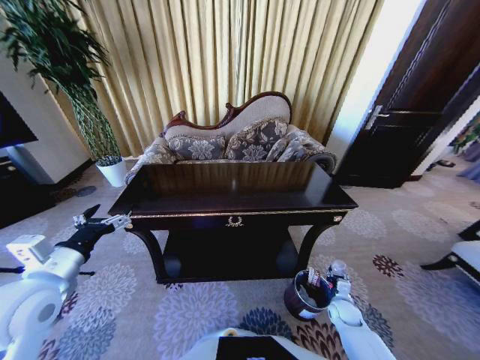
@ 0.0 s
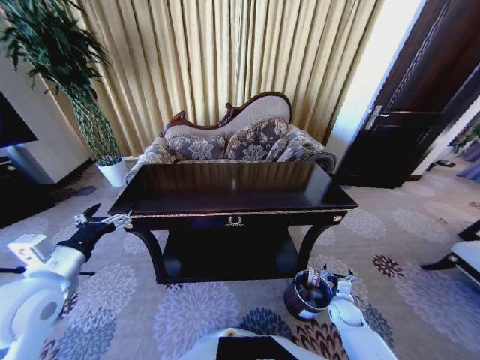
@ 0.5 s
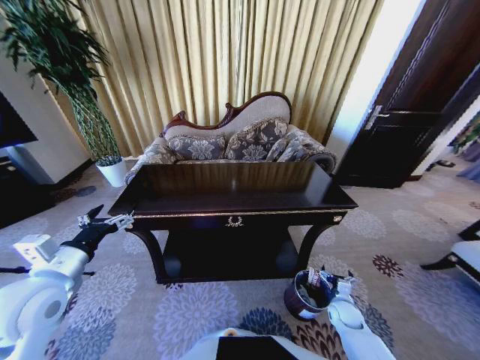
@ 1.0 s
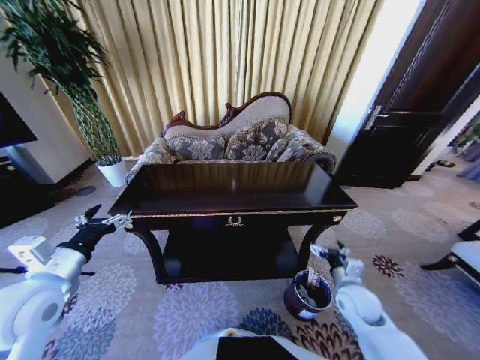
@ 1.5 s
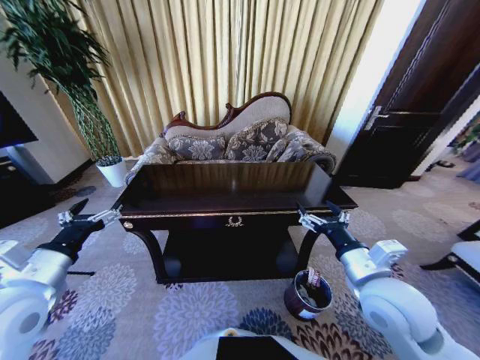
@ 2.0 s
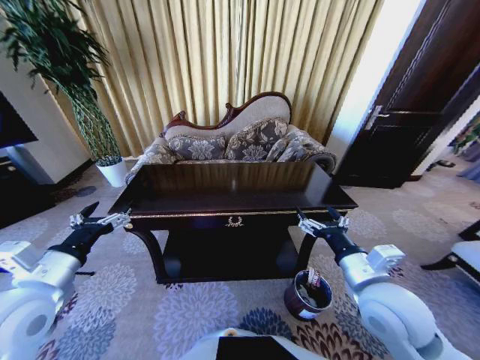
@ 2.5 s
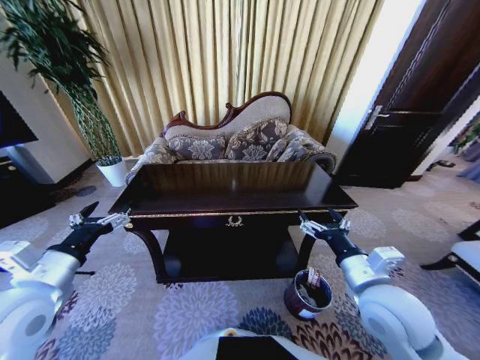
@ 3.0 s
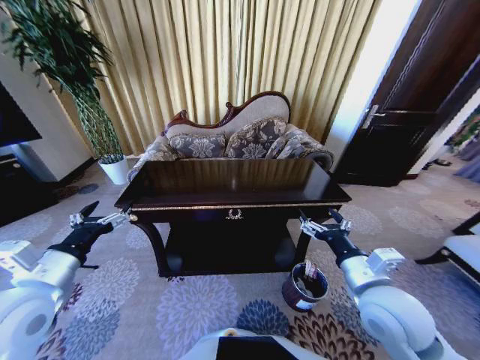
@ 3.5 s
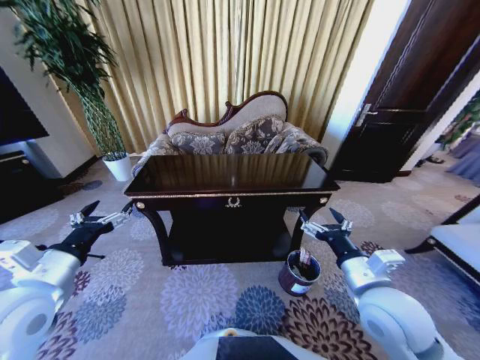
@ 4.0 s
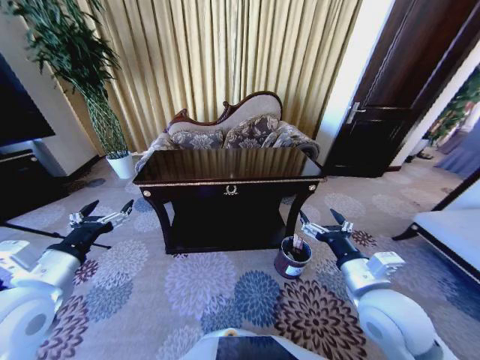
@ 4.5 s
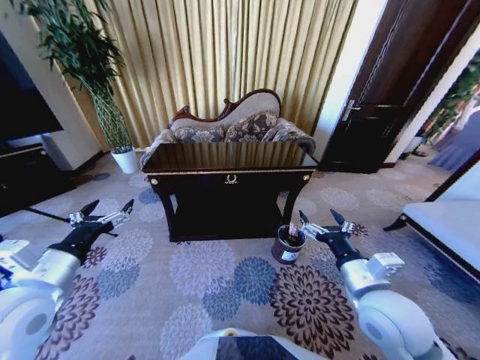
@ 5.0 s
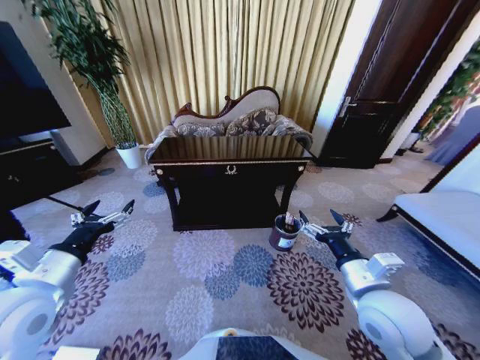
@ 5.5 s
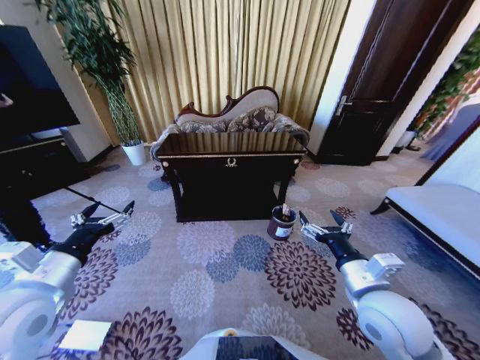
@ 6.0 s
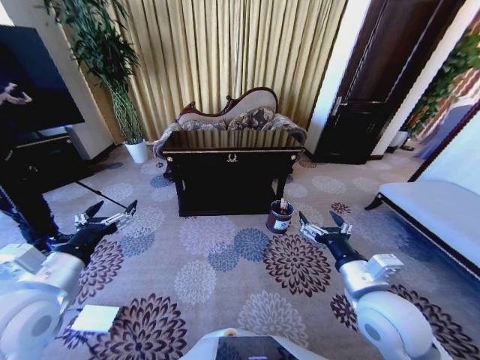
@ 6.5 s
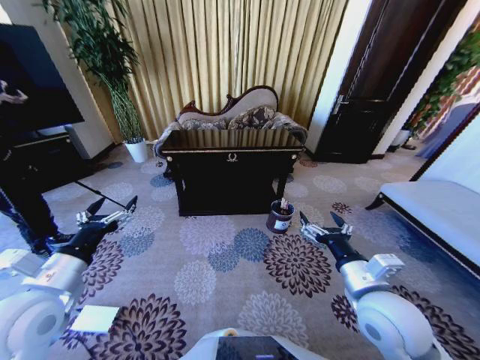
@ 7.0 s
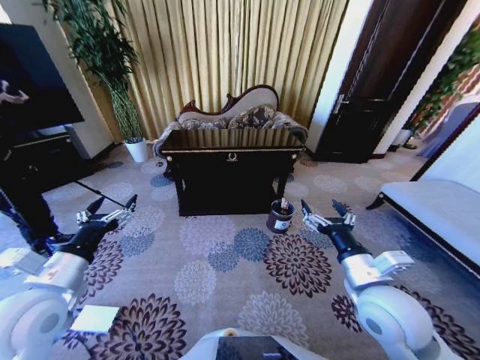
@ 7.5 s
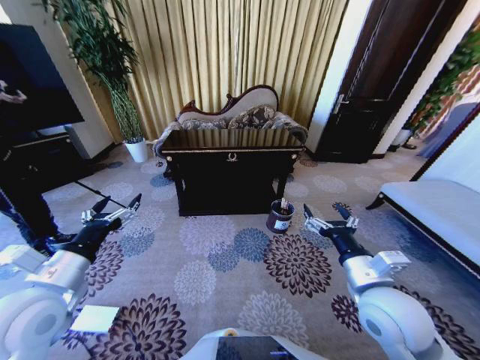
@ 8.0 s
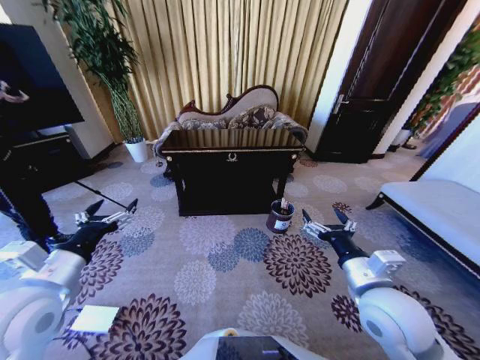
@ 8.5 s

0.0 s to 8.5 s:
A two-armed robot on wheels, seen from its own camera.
Task of the whole recording: Move to the front of the table and place the trash on the table into the trash bin.
0.0 to 2.0 s: The right gripper travels upward by roughly 35 cm, and opens.
6.5 to 8.5 s: The grippers stay close to where they were, moving slightly.

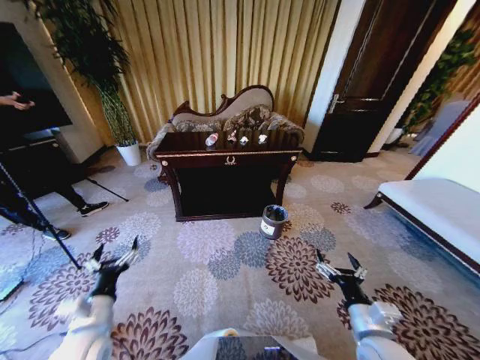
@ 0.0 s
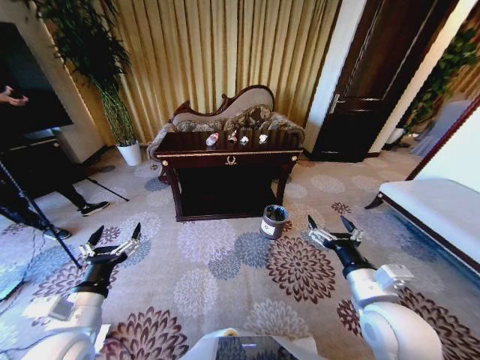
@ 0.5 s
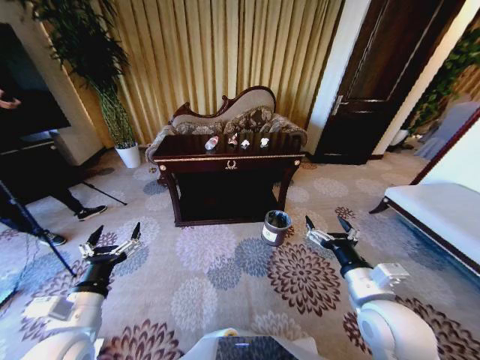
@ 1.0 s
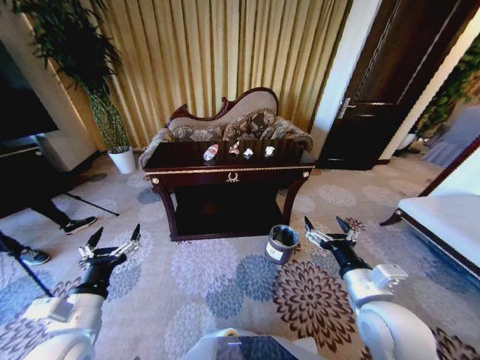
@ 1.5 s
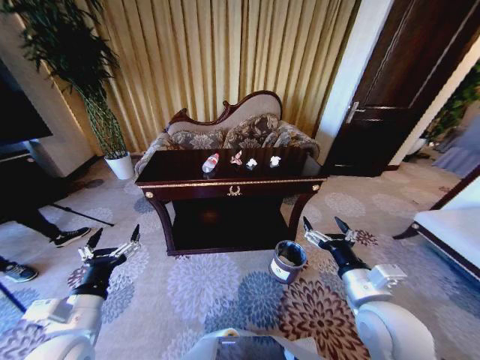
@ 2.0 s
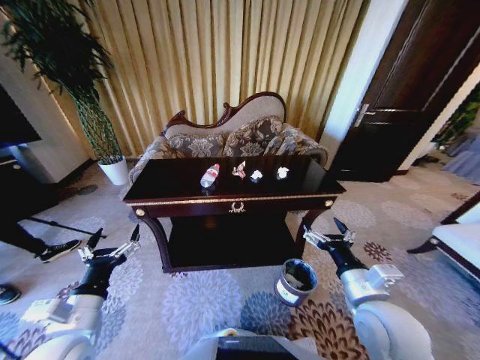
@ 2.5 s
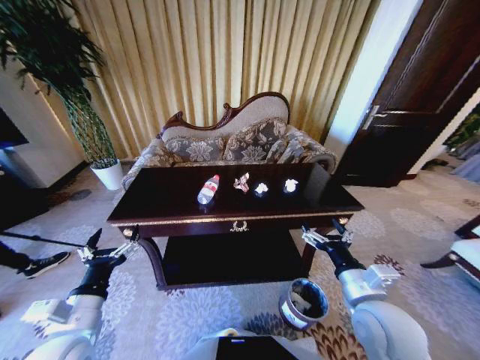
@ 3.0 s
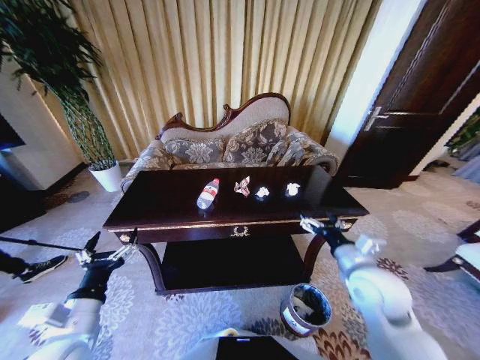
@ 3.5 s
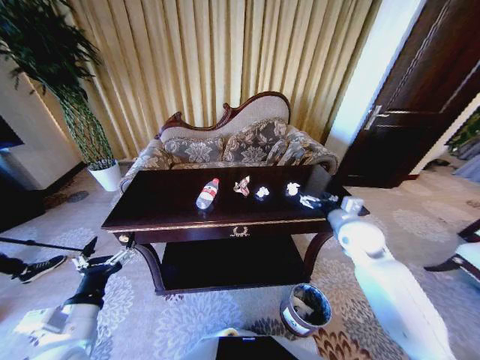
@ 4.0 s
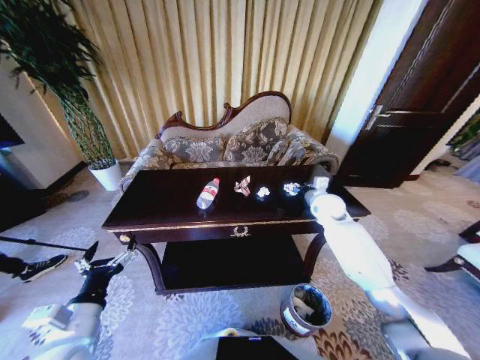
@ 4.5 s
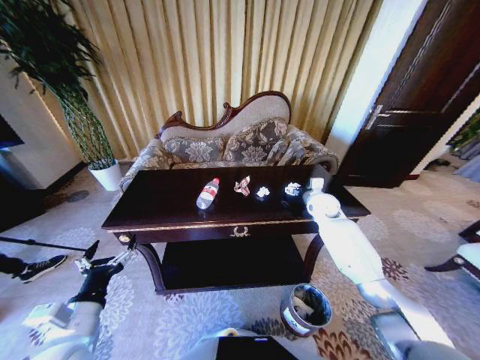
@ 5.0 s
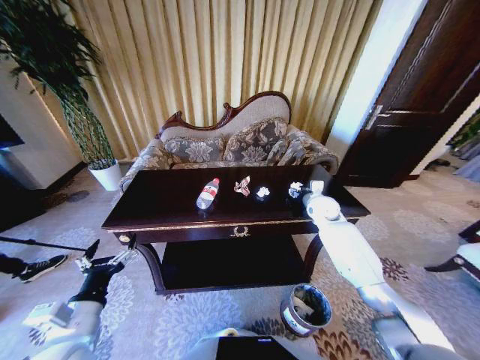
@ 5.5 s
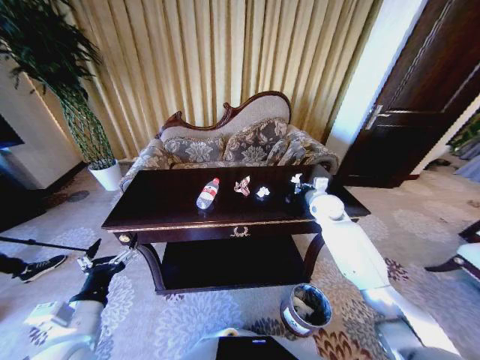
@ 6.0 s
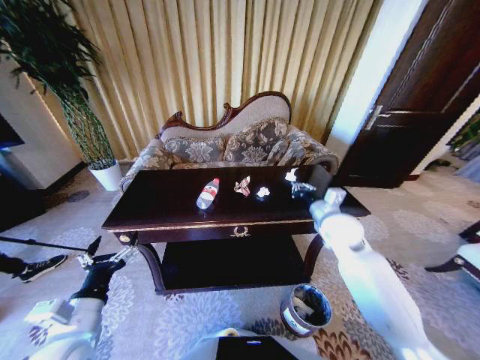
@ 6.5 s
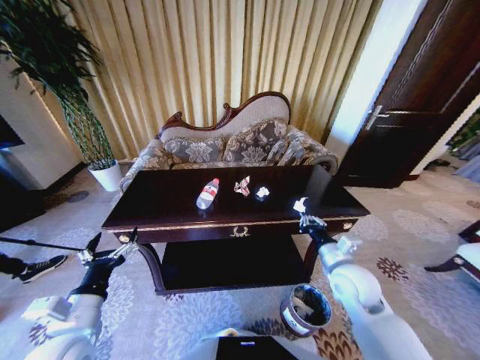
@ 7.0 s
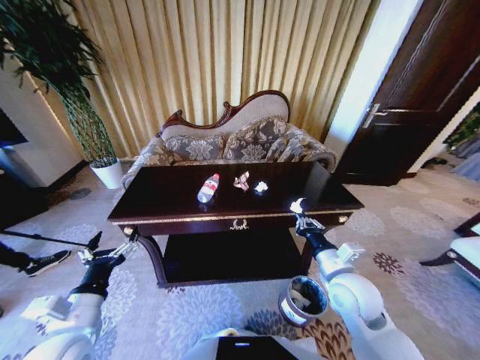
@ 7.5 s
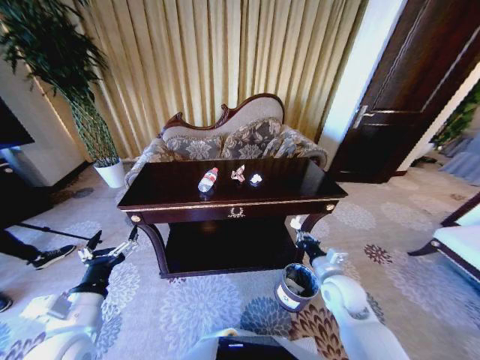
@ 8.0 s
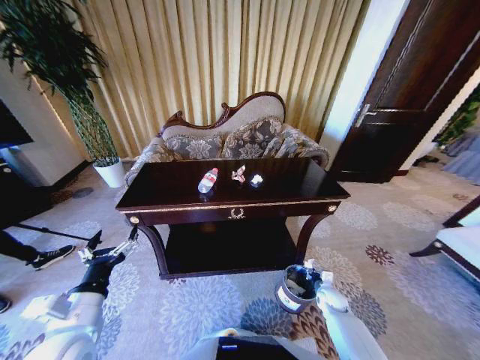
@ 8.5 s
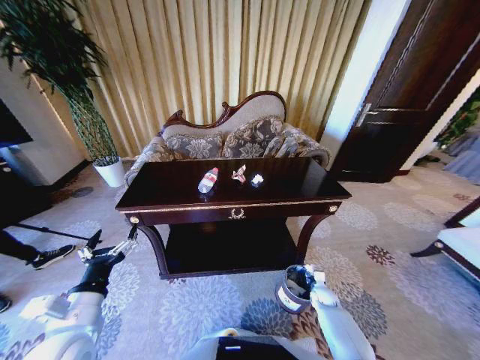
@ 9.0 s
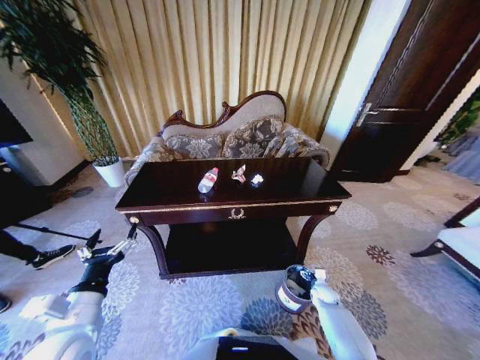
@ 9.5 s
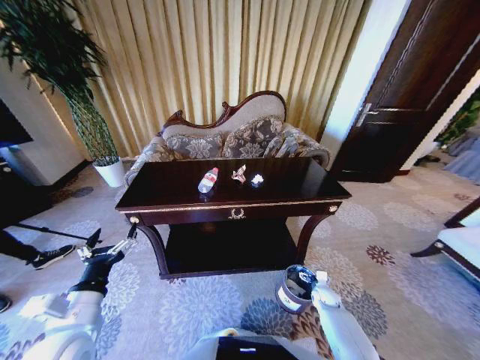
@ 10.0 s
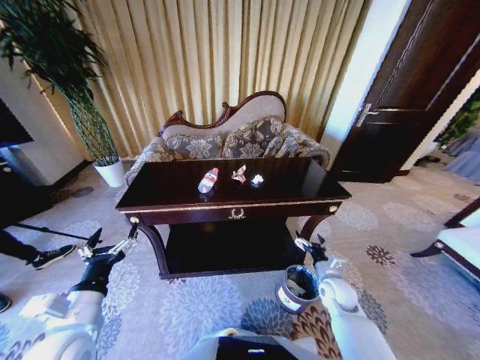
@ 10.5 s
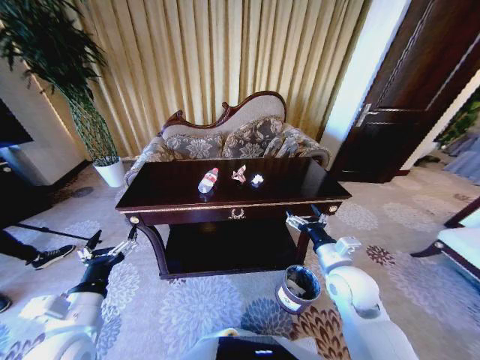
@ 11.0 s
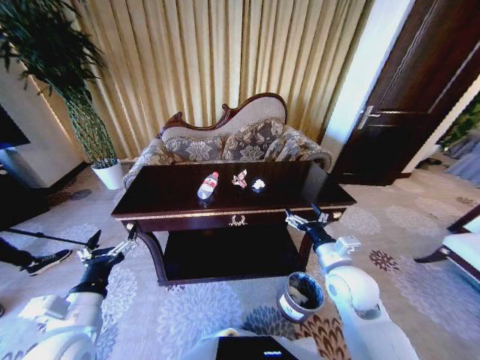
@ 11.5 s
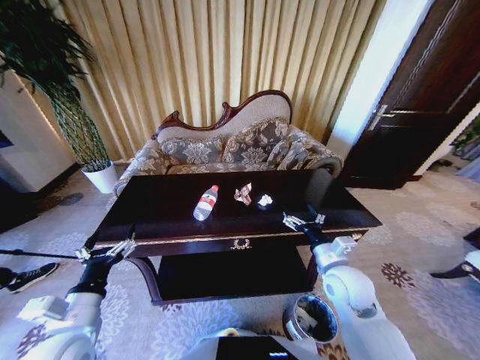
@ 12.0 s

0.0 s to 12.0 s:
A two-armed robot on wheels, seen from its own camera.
Task of the whole recording: Move to the front of the table and place the trash on the table into the trash bin.
2.0 to 4.0 s: The right gripper is displaced forward by about 20 cm.
4.0 to 6.0 s: The right gripper goes about 10 cm forward, and closes up.
6.0 to 8.0 s: The right gripper goes about 25 cm backward.
8.0 to 10.0 s: The right gripper shifts roughly 25 cm downward, and opens up.
10.0 to 12.0 s: The right gripper goes approximately 30 cm upward.

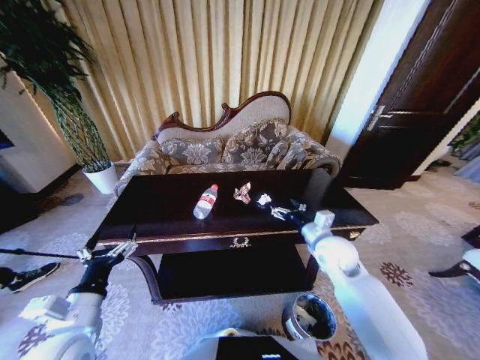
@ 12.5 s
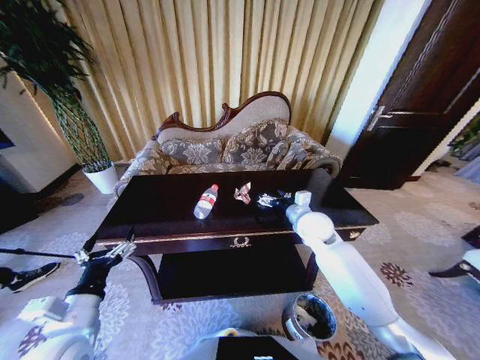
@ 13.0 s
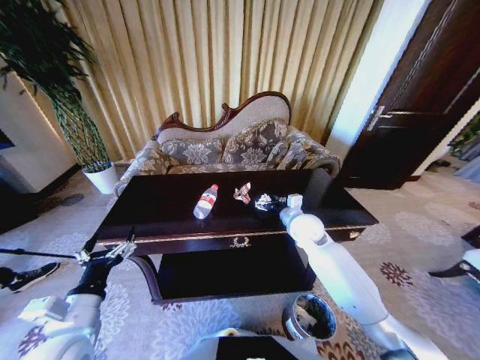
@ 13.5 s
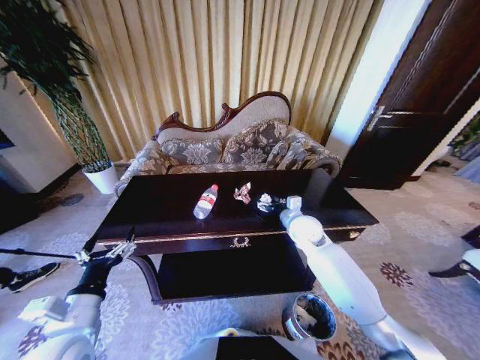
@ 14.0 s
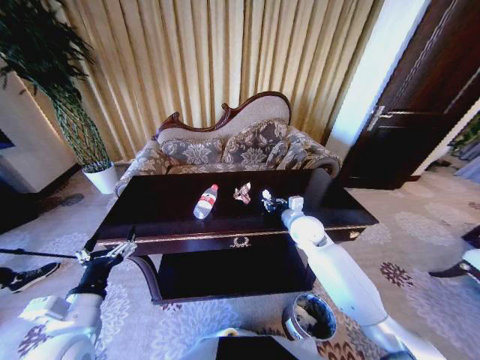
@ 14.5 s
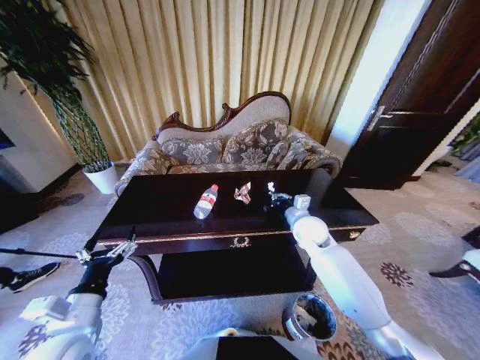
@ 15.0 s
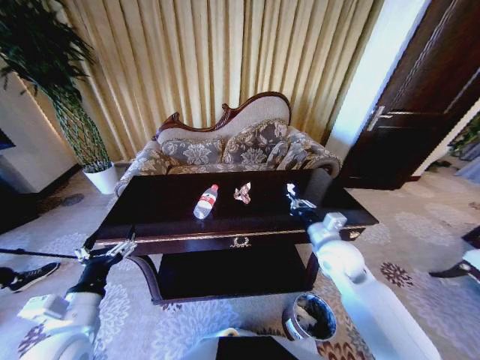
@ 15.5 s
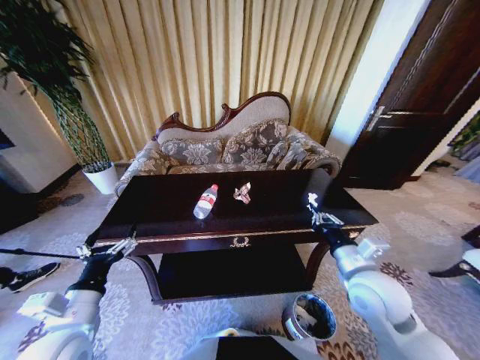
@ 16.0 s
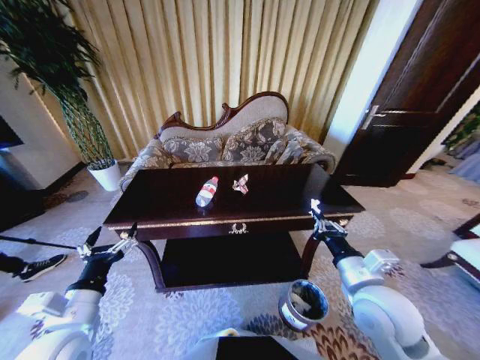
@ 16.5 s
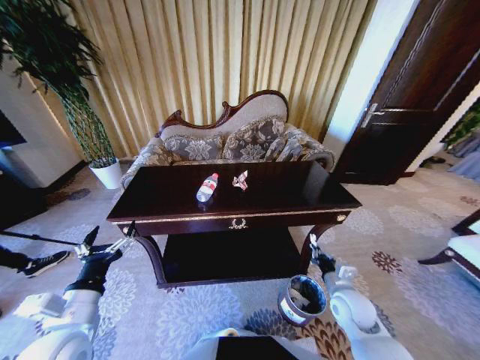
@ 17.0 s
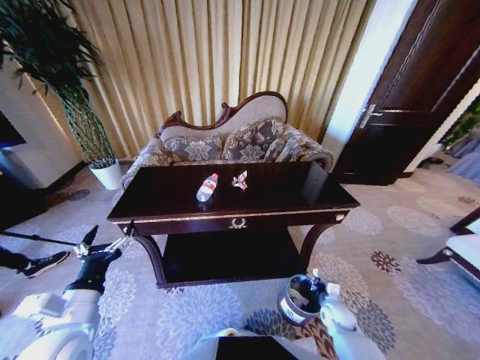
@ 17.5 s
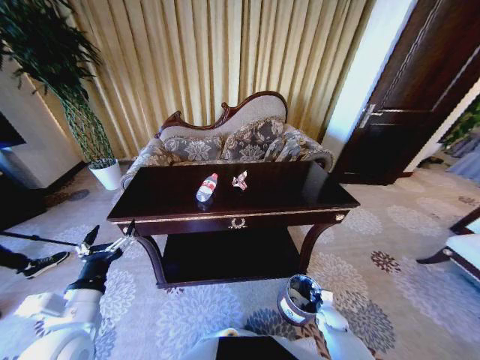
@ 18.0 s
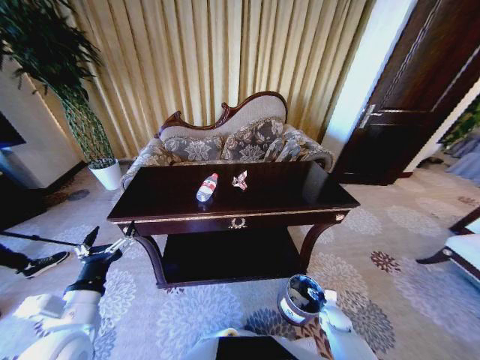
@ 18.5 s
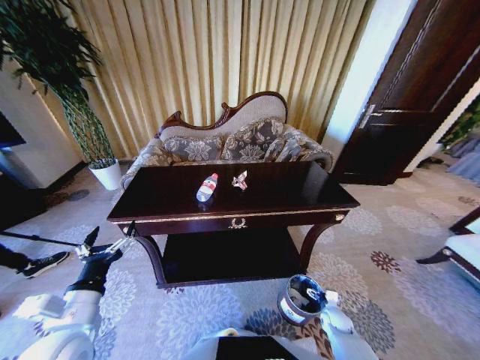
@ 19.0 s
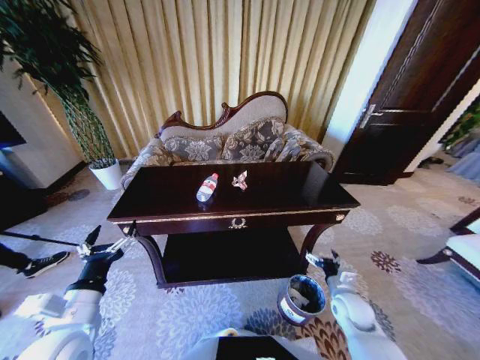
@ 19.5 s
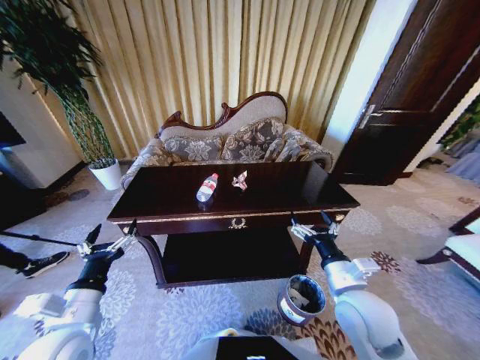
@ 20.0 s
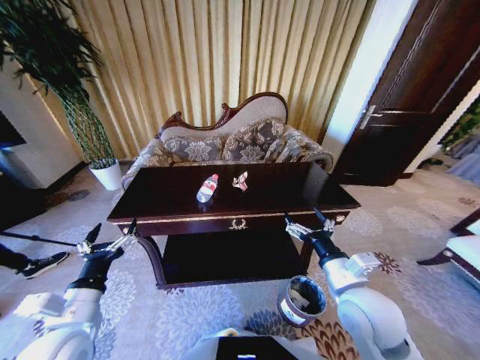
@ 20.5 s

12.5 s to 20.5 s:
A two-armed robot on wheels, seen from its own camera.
Task of the whole recording: Move to the front of the table and place the trash on the table into the trash bin.
12.5 to 14.5 s: The right gripper is displaced forward by approximately 10 cm, and closes.
14.5 to 16.5 s: The right gripper heads backward, covering roughly 25 cm, and closes its fingers.
16.5 to 18.5 s: The right gripper heads downward, covering about 40 cm, and opens up.
18.5 to 20.5 s: The right gripper goes approximately 40 cm upward.
